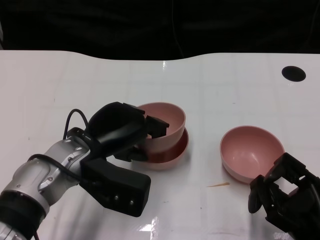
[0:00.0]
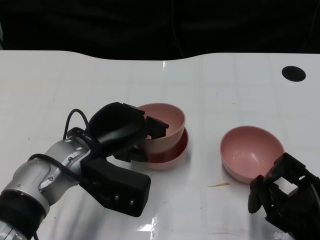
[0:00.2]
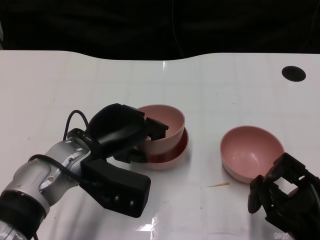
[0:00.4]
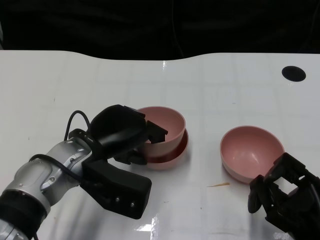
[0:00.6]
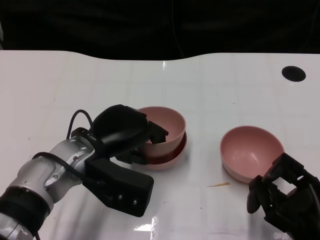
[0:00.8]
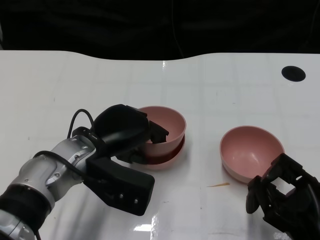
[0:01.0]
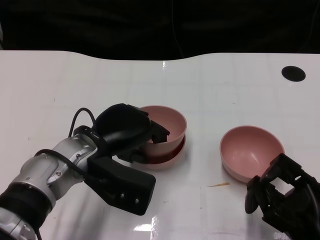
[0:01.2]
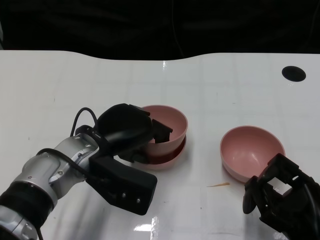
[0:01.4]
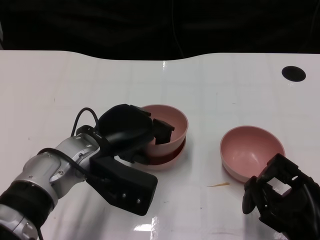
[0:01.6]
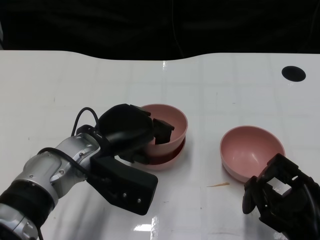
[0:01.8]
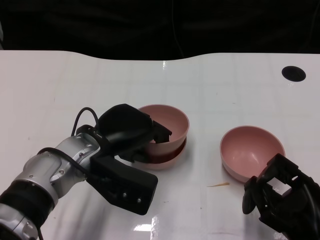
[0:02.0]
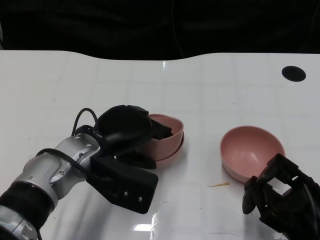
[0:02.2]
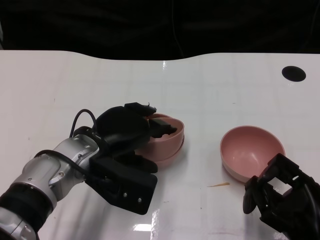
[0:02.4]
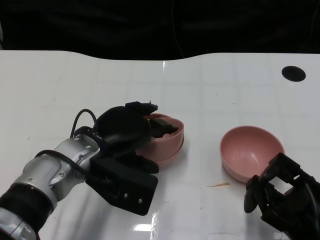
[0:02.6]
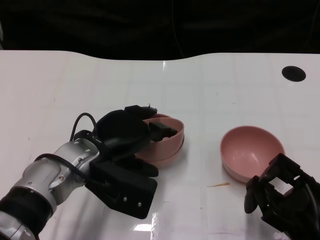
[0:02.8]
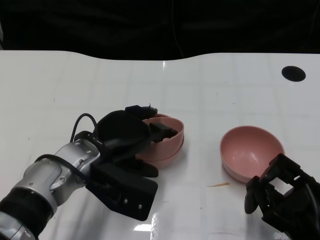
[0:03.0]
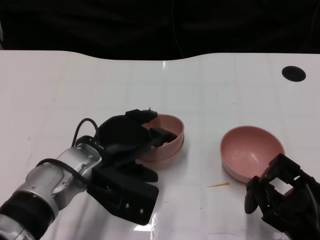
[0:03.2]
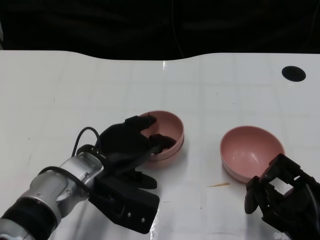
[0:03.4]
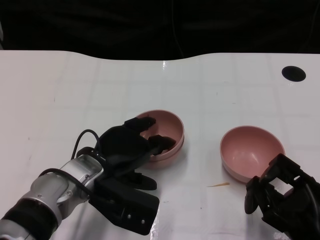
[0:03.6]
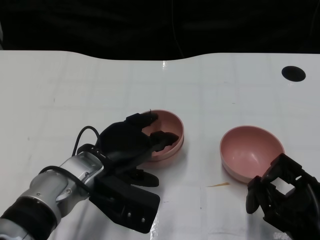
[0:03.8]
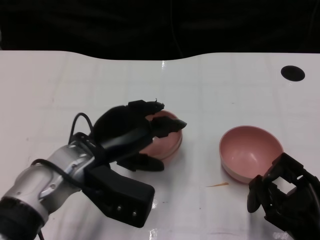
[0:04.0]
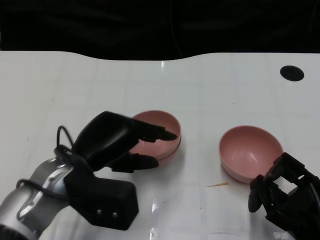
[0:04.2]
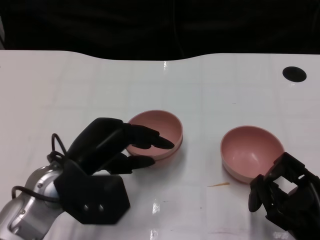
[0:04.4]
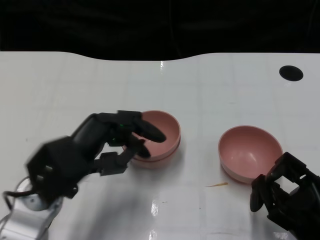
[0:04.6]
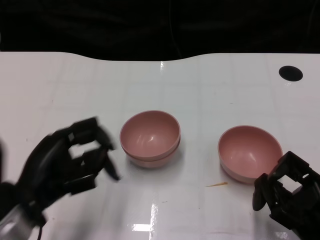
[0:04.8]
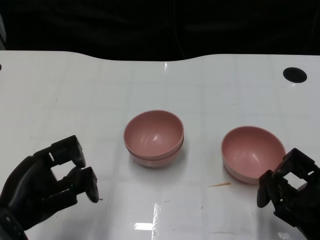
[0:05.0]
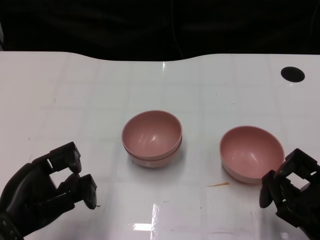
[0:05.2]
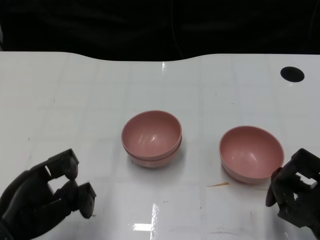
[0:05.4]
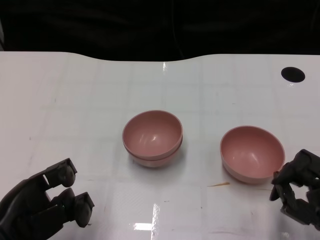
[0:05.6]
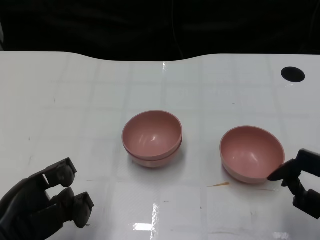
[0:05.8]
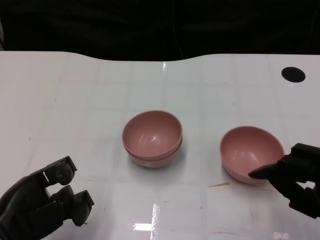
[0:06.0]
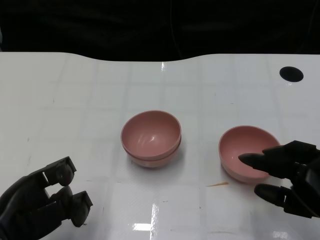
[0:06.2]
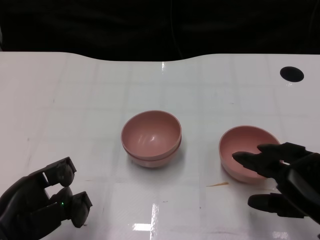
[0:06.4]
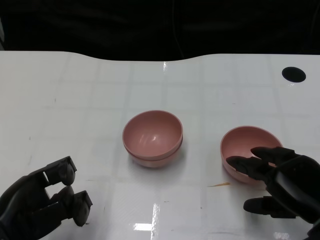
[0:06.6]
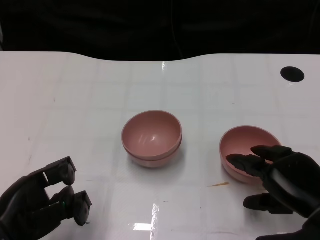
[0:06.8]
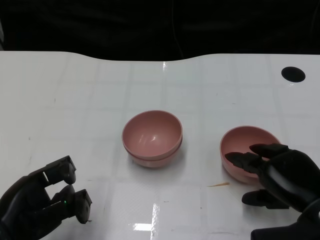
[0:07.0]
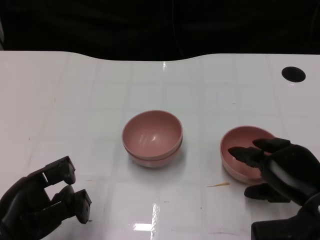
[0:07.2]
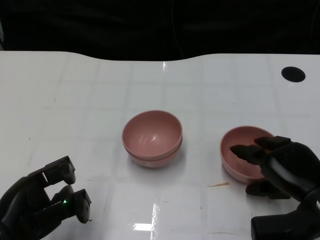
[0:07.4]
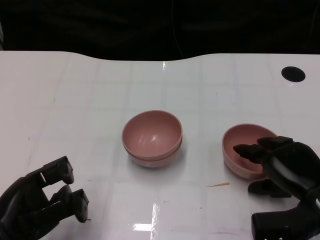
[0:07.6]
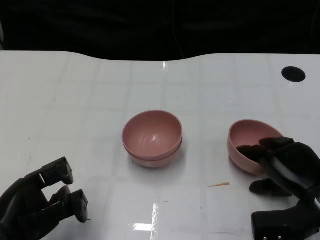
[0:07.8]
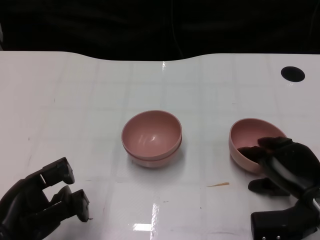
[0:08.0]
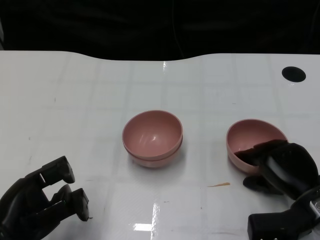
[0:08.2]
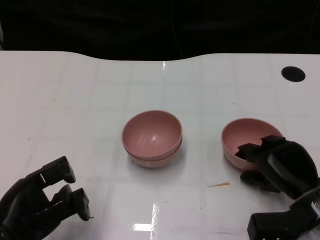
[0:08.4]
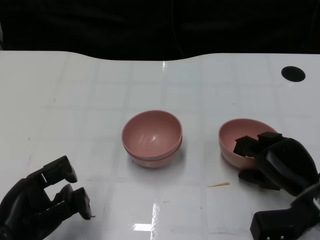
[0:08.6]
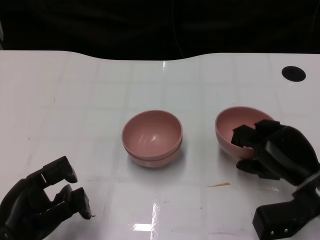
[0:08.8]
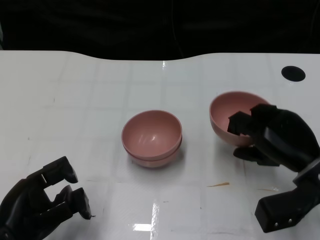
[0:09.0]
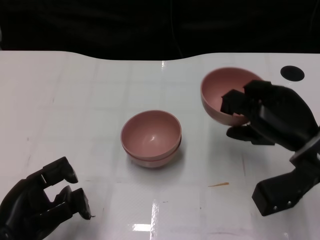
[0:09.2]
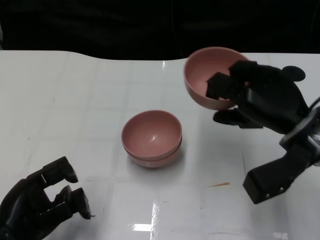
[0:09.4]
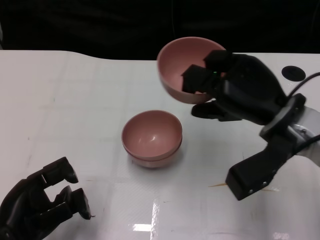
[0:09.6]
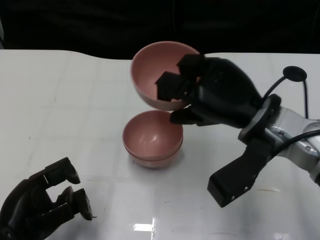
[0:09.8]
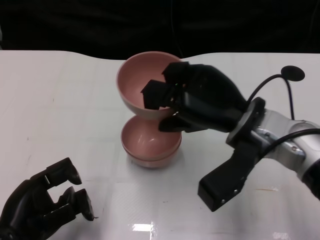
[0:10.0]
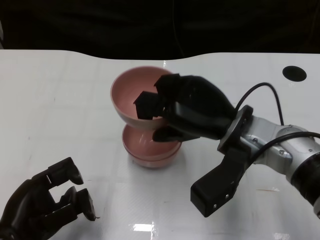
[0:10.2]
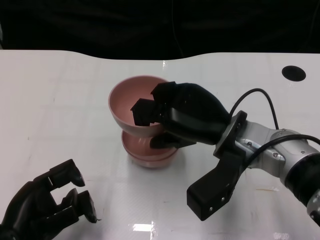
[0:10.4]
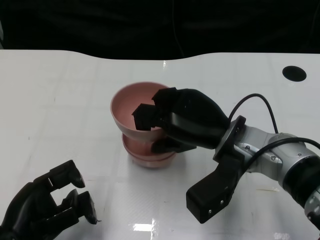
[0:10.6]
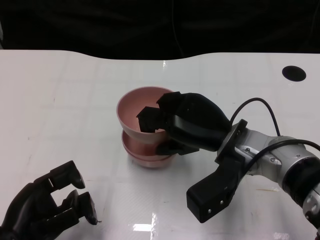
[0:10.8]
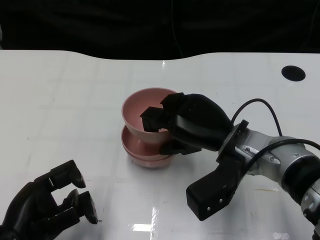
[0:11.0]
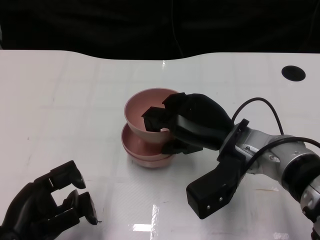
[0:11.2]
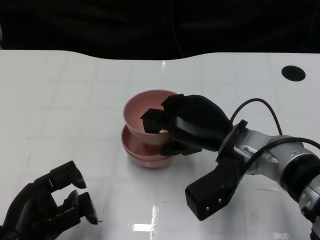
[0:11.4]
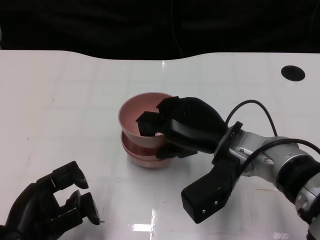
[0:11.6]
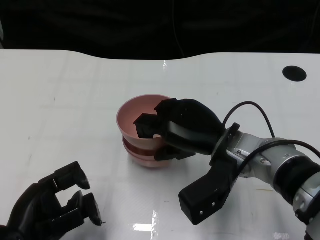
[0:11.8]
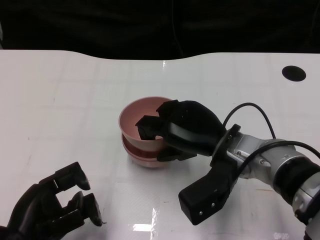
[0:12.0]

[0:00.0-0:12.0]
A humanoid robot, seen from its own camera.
Task of the whole recording: Pick up the bowl on one side of the table and place it on top of the middle bowl, then pick up the bowl on the other side of the table and place it on top of the middle bowls.
Step, 0:00.0 to 0:03.8: Place the bowl on the left onto the bowl in the middle with left gripper.
Step, 0:04.0 to 0:08.6: Grasp the bowl on the right with the right gripper.
0:00.0 to 0:01.6: The hands move only a little.
0:01.6 to 0:03.0: The two hands keep their place.
0:03.0 to 0:04.4: The left hand changes place by about 5 cm.
0:04.4 to 0:06.0: The left hand is displaced to the left and backward by about 10 cm.
0:06.0 to 0:07.6: The right hand moves forward, approximately 5 cm.
0:09.0 to 0:10.4: The right hand shifts roughly 15 cm to the left and upward.
0:10.4 to 0:12.0: The hands make only small movements.

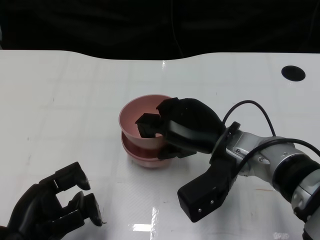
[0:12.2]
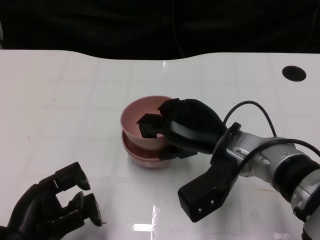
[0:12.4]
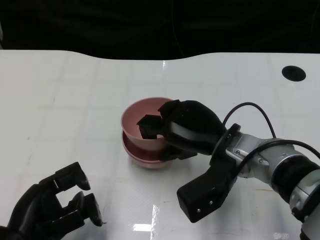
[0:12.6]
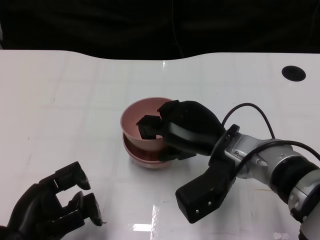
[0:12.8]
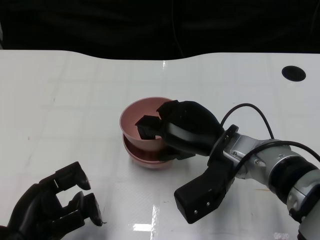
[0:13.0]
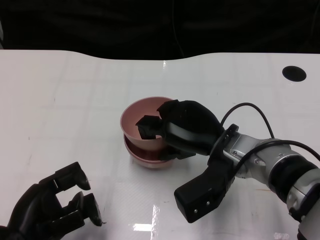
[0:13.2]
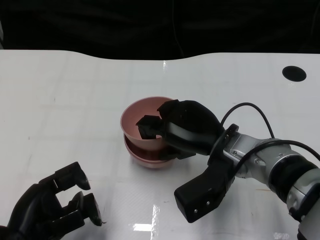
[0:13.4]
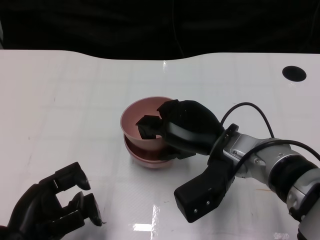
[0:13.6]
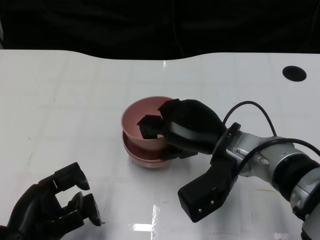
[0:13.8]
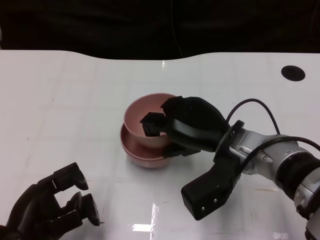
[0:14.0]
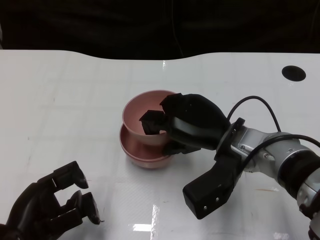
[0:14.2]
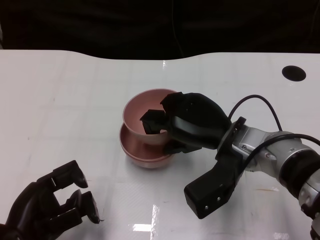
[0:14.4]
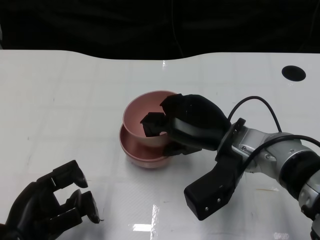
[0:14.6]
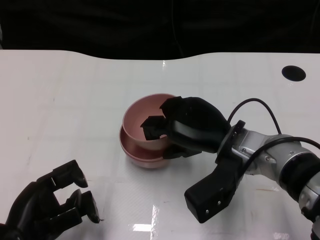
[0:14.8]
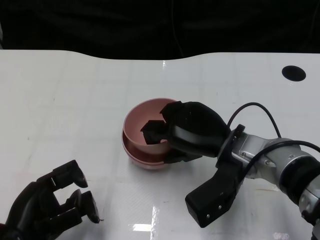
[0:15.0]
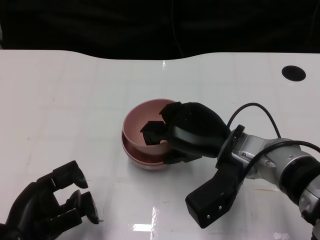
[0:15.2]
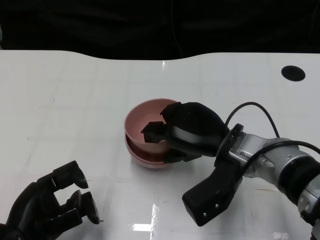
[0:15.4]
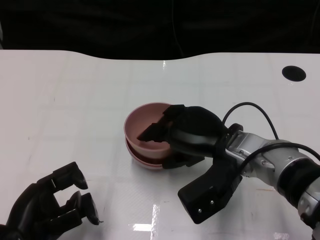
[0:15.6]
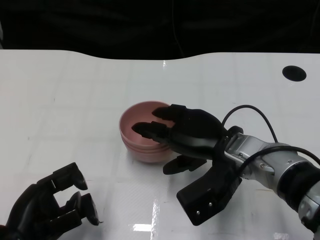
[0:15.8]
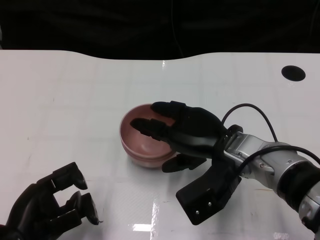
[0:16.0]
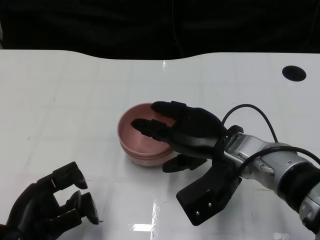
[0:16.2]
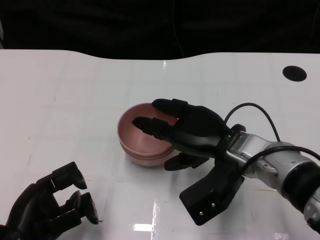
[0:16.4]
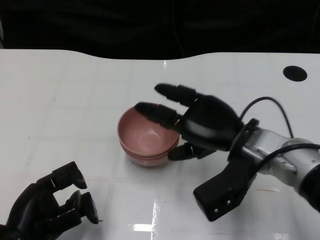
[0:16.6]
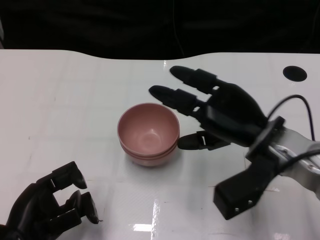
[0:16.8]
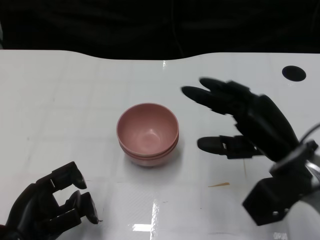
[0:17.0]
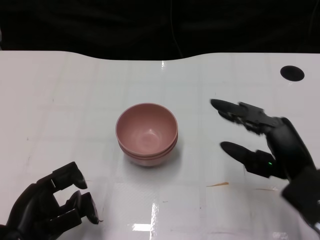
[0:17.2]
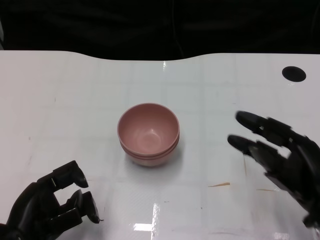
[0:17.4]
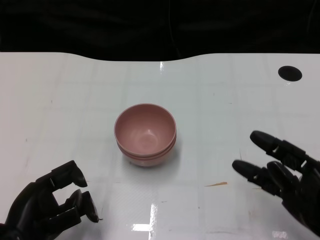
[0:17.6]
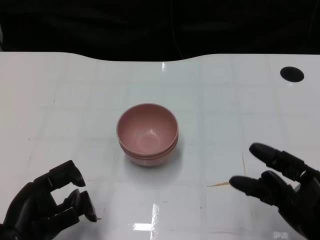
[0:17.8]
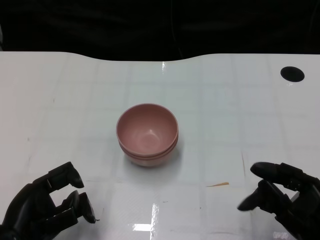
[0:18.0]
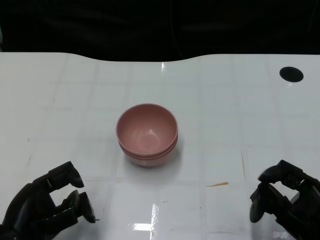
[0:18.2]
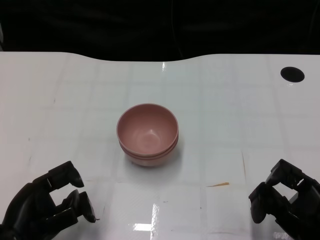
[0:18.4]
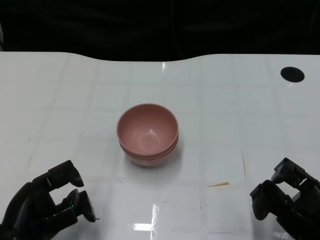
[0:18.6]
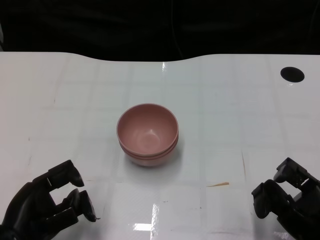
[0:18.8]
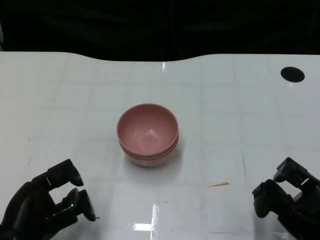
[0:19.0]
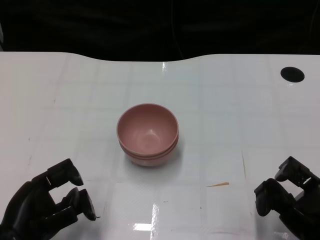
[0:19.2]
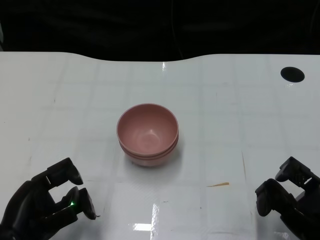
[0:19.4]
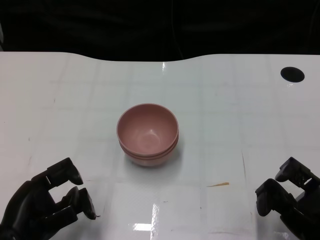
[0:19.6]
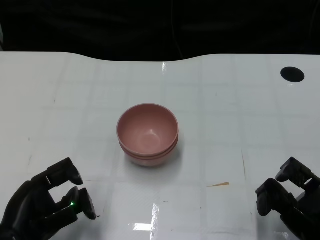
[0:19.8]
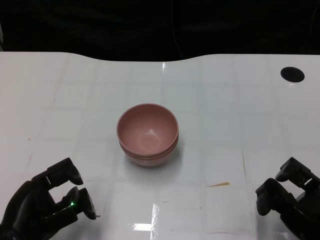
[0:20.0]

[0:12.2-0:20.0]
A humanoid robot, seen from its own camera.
Task of the whole recording: Pick up the bowl on one side of the table and place it on top of the middle bowl, then pick up the bowl on the other side of the table and place it on top of the middle bowls.
Step, 0:12.2 to 0:16.4: Place the bowl on the right onto the bowl in the middle with right gripper.
0:12.2 to 0:15.4: The two hands keep their place.
0:15.4 to 0:16.8: The right hand shifts by roughly 5 cm.
0:16.8 to 0:18.4: The right hand is displaced backward, to the right and downward by about 20 cm.
0:18.4 to 0:20.0: The hands make only small movements.

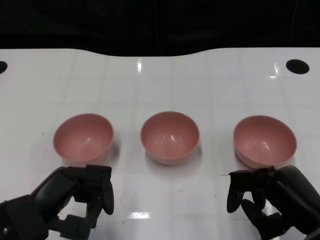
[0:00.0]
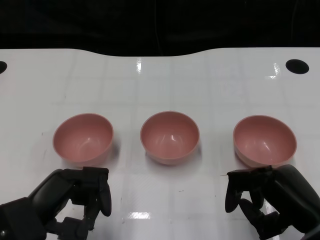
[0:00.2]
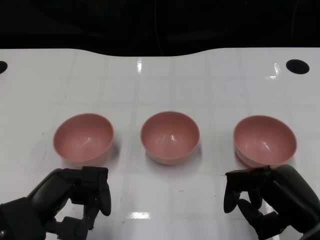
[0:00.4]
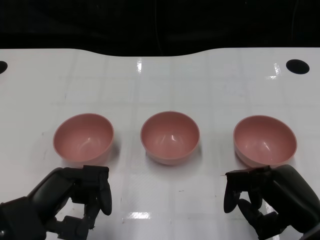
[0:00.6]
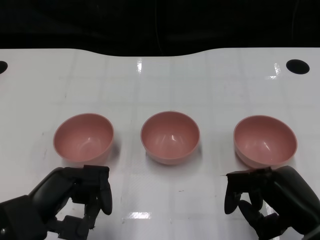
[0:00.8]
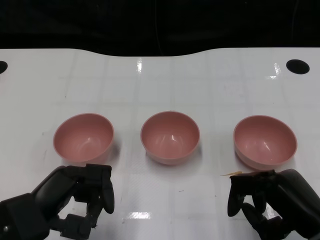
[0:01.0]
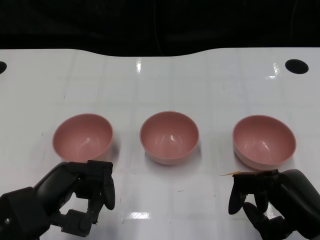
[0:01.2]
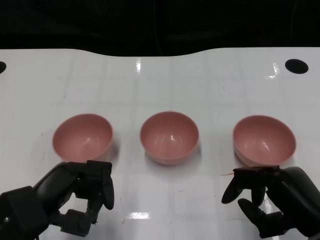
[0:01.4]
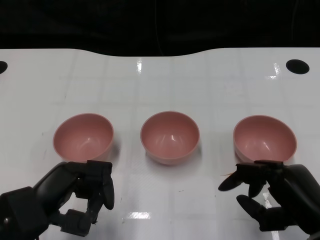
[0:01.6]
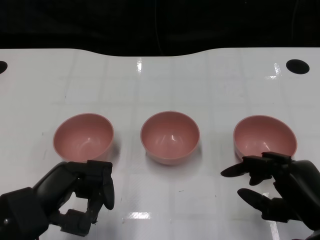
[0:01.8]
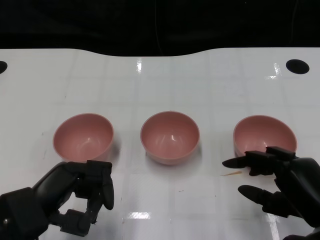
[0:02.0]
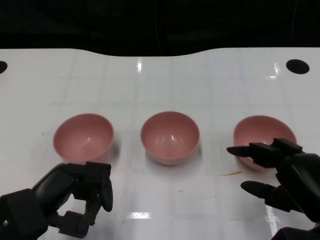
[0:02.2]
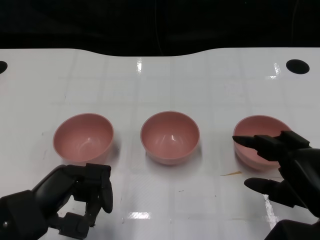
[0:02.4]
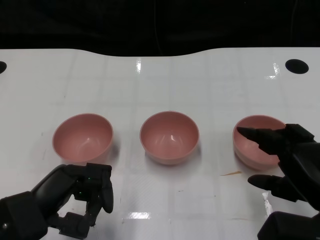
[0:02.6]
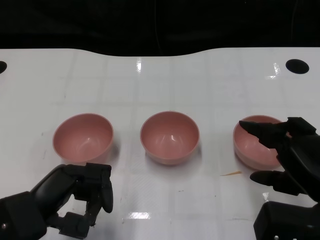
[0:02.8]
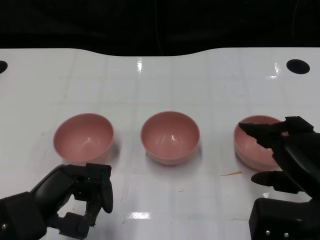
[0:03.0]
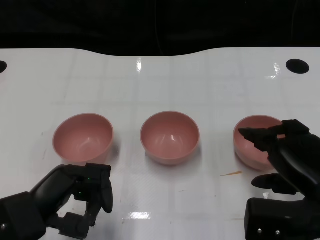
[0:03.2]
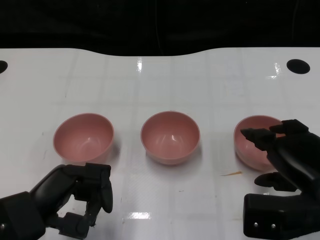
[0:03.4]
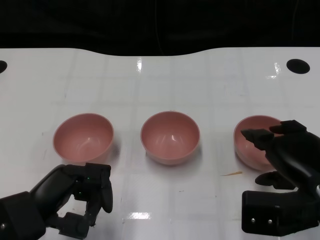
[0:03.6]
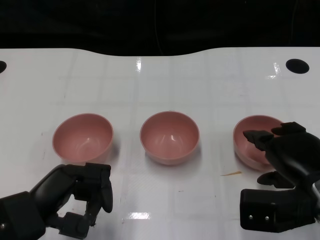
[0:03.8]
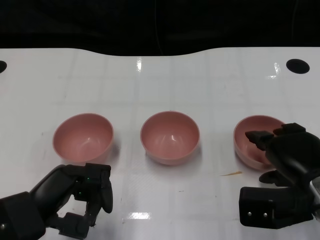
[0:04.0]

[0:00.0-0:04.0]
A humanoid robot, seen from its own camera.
Task of the whole recording: Pick up the bowl on one side of the table and place it on top of the middle bowl, then pick up the bowl on the other side of the table and place it on top of the middle bowls.
0:01.4 to 0:02.6: There are only small adjustments of the hands.
0:02.6 to 0:04.0: The right hand travels forward by approximately 5 cm.
